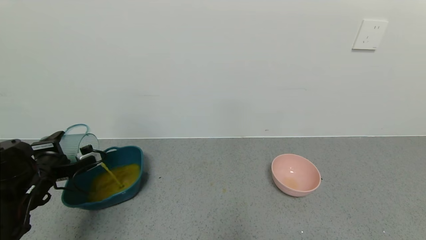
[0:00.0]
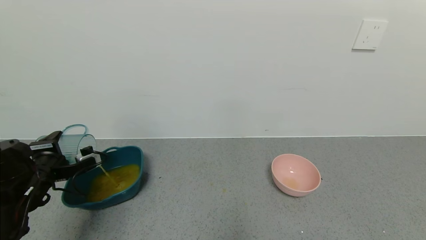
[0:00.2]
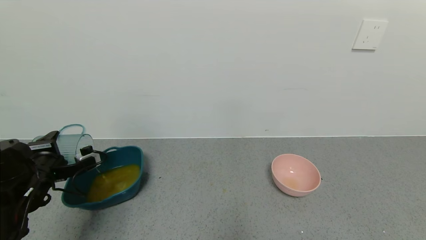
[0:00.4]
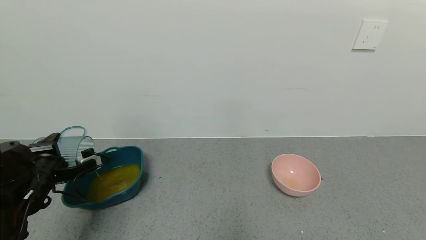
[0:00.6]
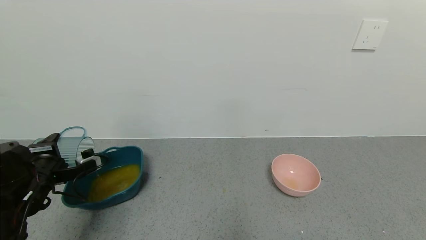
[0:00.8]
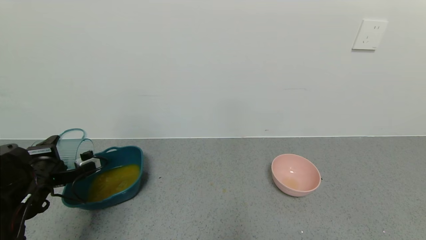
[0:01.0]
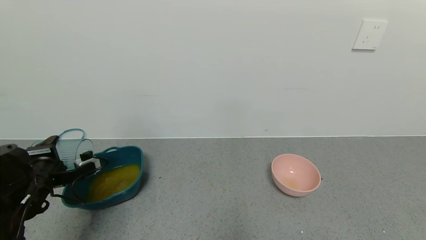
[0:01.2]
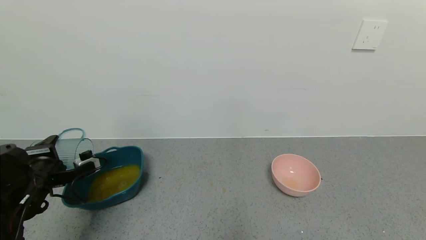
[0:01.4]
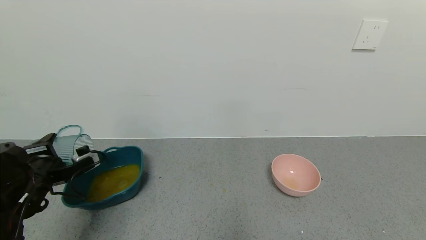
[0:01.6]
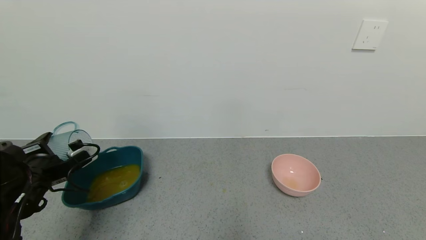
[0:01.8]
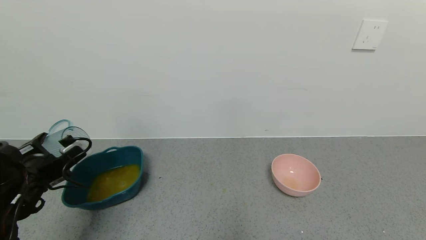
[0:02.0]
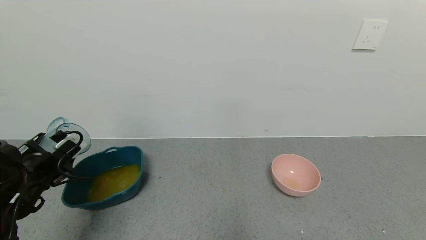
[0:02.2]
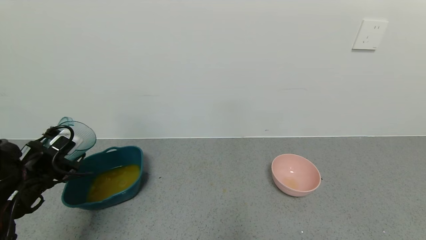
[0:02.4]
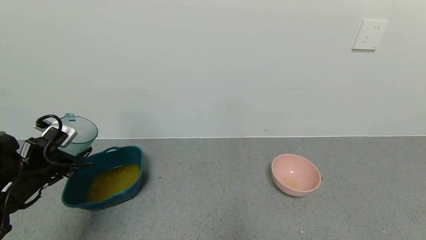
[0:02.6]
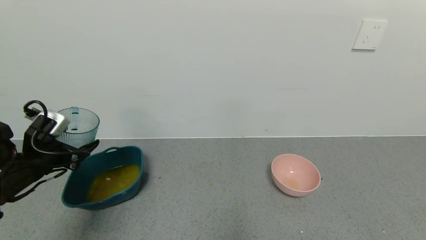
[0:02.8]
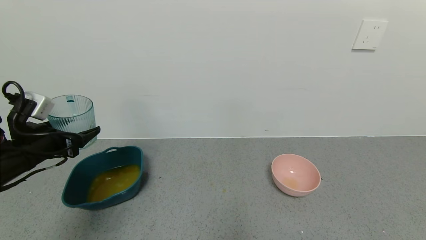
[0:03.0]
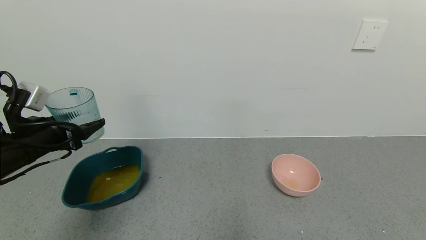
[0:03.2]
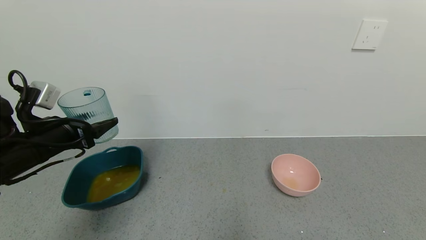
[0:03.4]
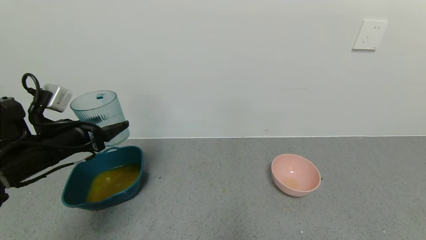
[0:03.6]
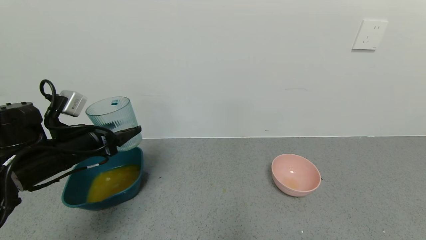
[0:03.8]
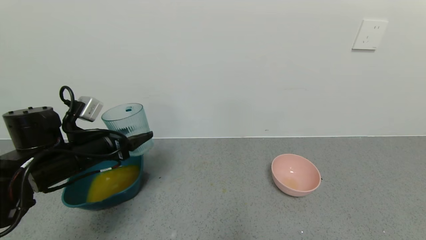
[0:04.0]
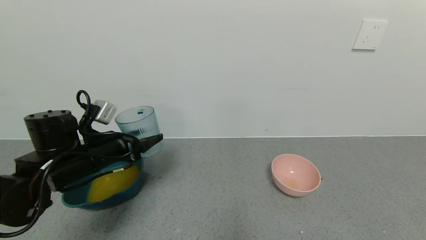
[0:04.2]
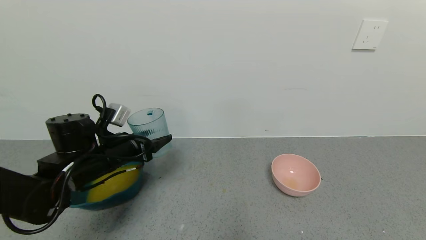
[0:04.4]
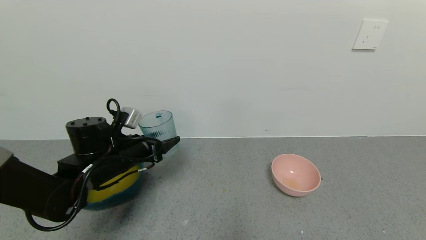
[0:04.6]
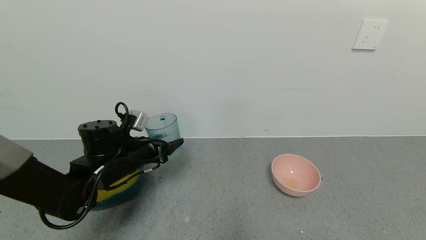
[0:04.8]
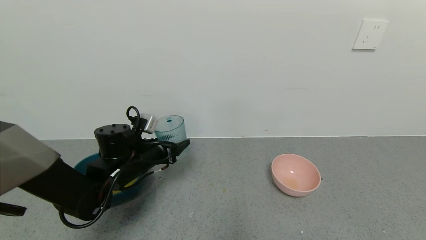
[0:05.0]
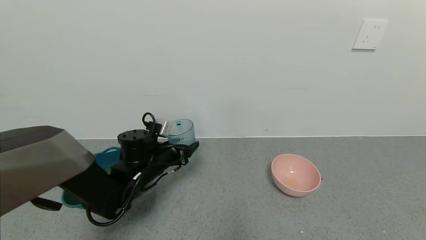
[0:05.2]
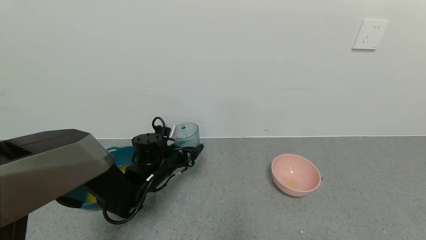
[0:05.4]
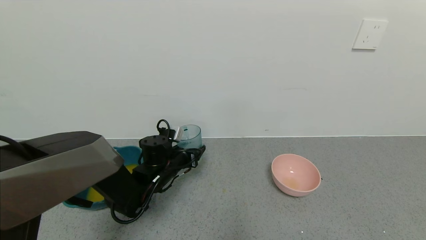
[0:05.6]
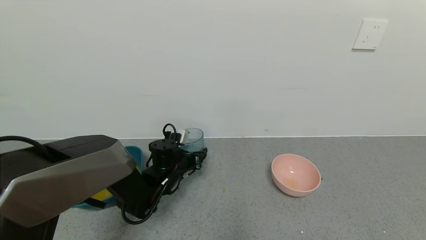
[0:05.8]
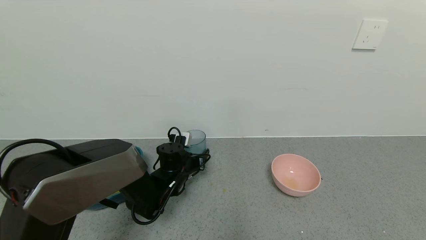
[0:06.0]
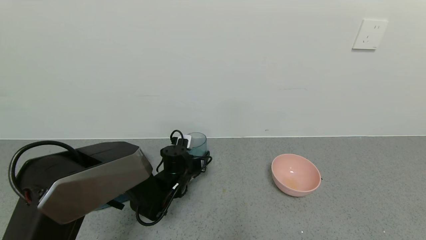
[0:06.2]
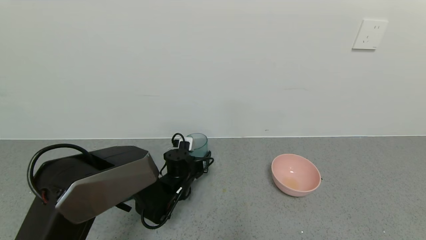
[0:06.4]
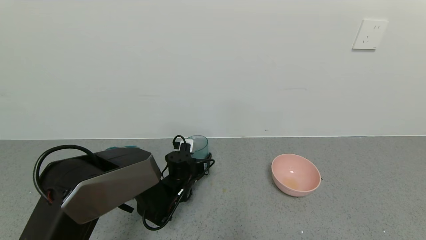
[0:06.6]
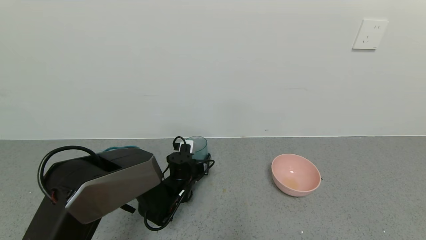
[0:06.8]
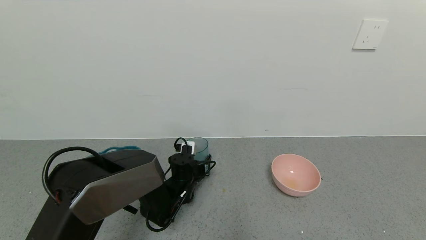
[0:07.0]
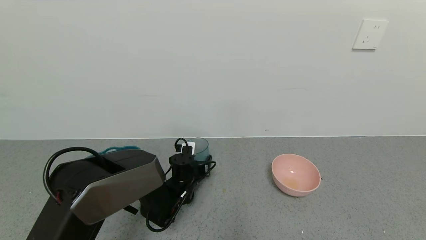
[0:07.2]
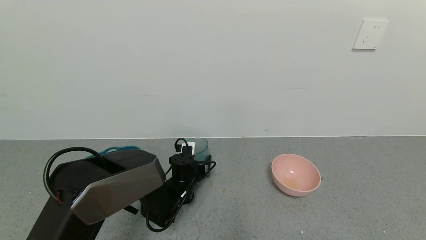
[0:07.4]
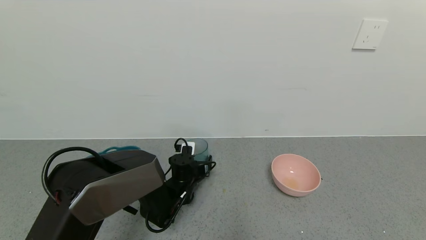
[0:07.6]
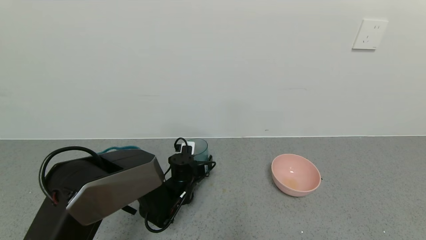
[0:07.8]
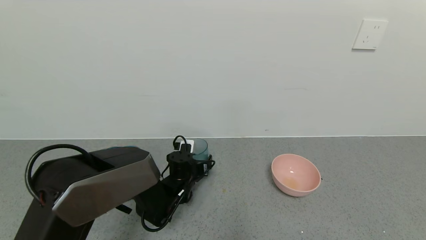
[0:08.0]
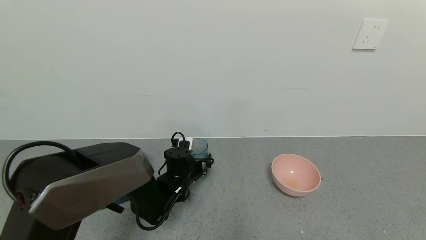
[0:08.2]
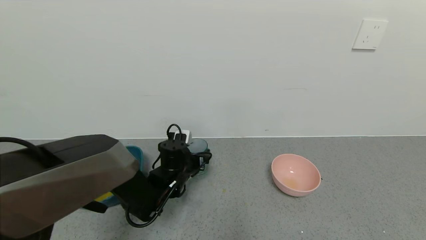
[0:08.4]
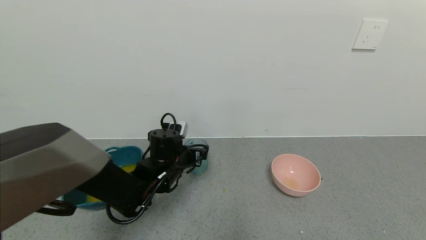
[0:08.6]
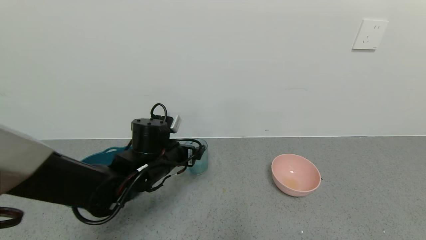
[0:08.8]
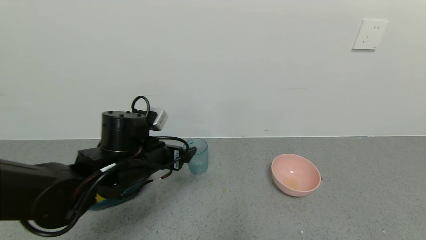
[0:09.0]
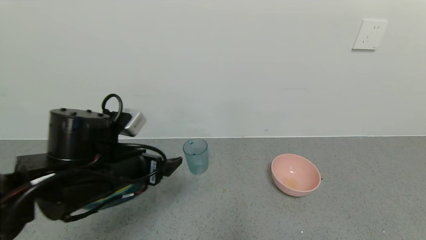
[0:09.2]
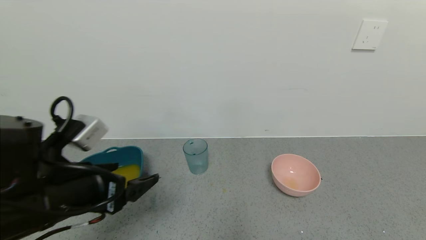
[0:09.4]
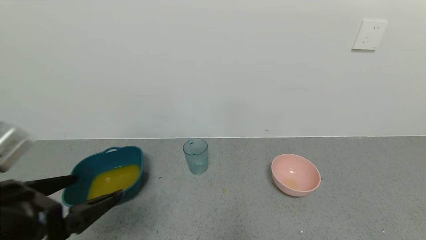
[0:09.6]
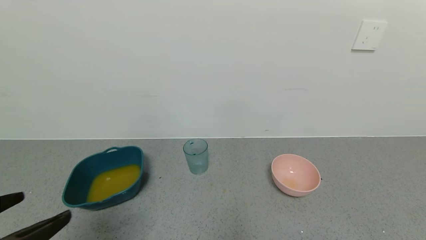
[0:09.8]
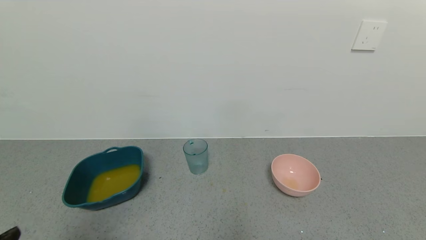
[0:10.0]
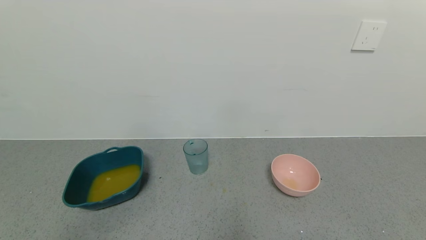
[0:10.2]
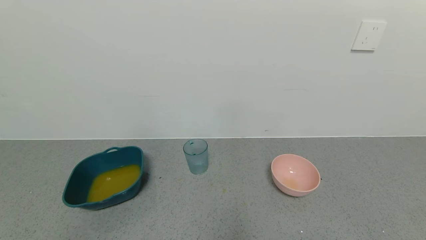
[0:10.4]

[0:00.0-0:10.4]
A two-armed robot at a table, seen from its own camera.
Task of the whole recording: use a gripper to pick up the cup and pour the liquid into a bowl or tray.
Step, 0:00.0 to 0:02.2: Pour the orange juice into the blue basin with left gripper.
Step, 0:02.4 to 0:08.2: Place blue cup with orange juice on the table with left gripper.
0:00.0 to 0:01.4: The grippers move only a little.
0:01.4 to 0:03.0: The left gripper moves upward, about 5 cm.
0:03.0 to 0:04.4: The left gripper goes approximately 10 cm to the right.
0:04.4 to 0:06.0: The left gripper heads downward, to the right and forward, covering approximately 20 cm.
0:06.0 to 0:07.4: The grippers stay close to where they were, moving slightly.
0:07.4 to 0:09.0: The left gripper travels upward and backward by approximately 20 cm, and opens up.
0:09.0 to 0:10.4: The left gripper goes about 35 cm backward and to the left.

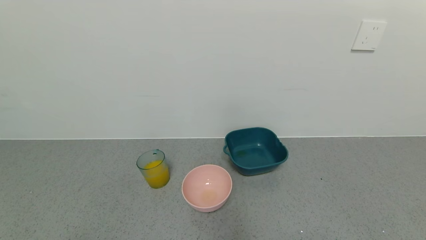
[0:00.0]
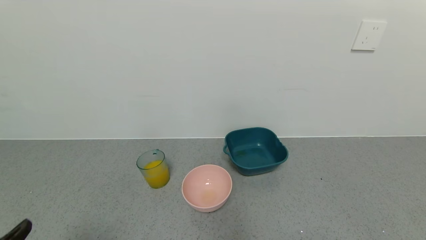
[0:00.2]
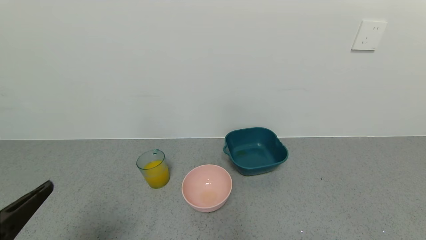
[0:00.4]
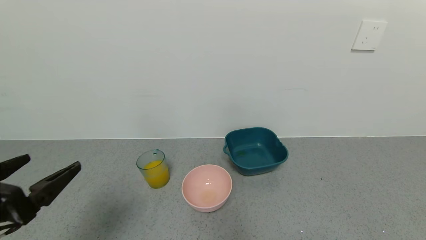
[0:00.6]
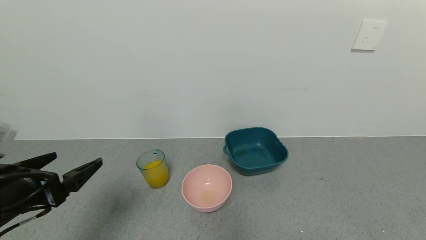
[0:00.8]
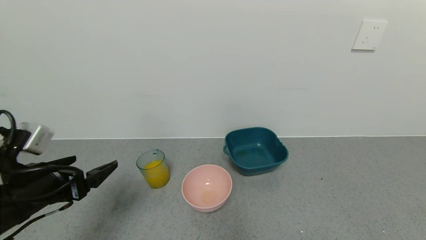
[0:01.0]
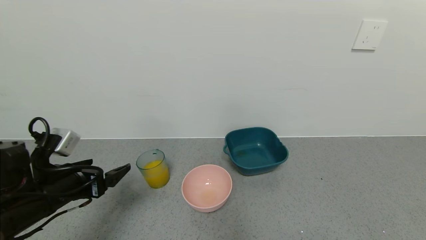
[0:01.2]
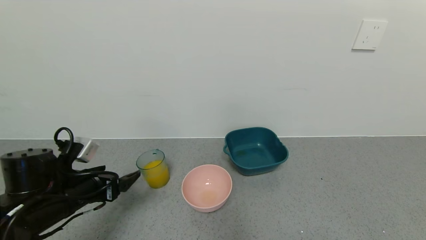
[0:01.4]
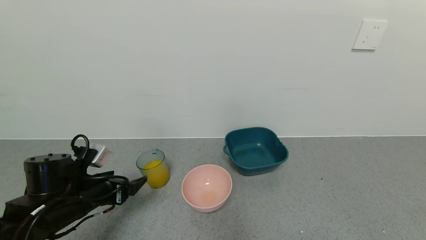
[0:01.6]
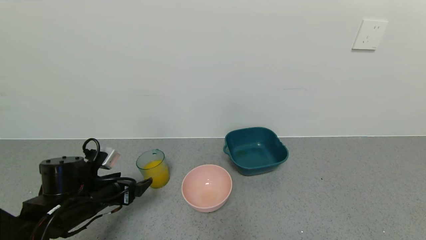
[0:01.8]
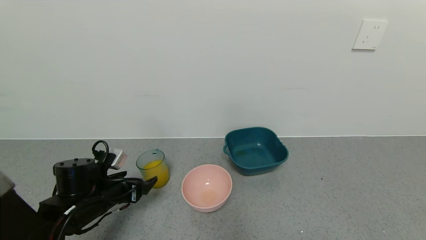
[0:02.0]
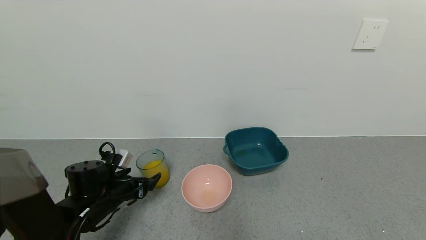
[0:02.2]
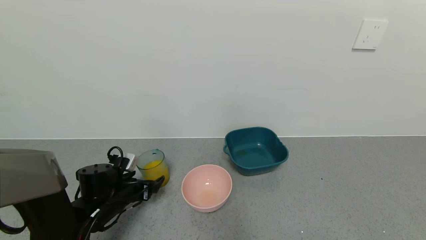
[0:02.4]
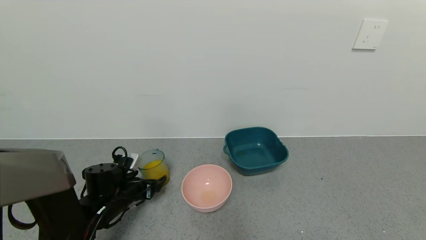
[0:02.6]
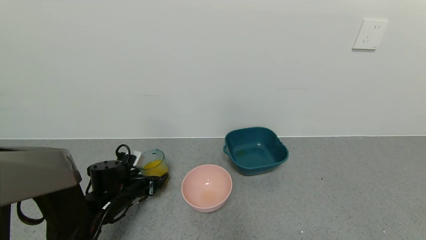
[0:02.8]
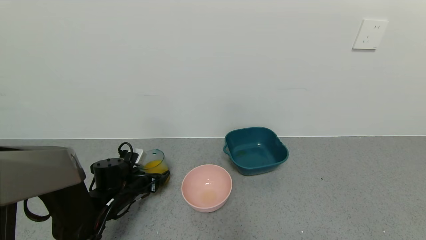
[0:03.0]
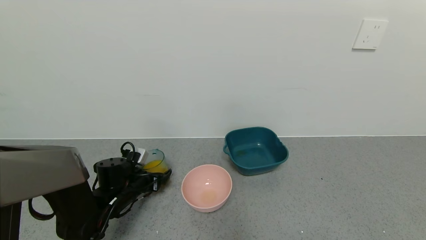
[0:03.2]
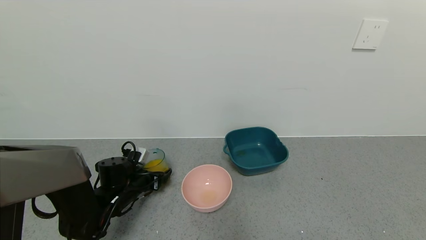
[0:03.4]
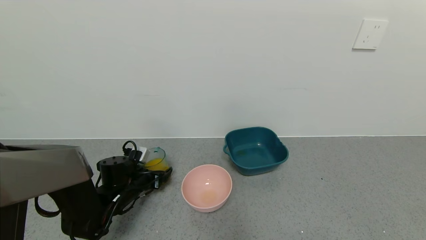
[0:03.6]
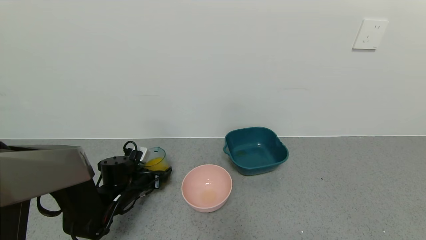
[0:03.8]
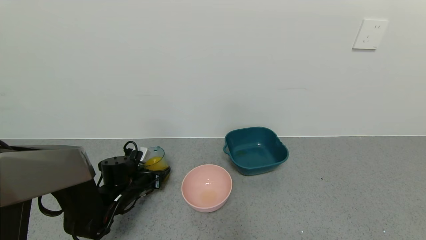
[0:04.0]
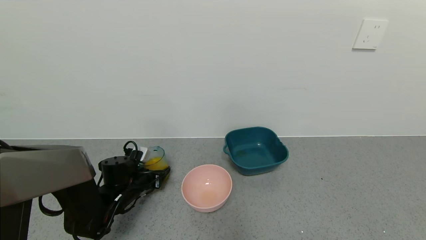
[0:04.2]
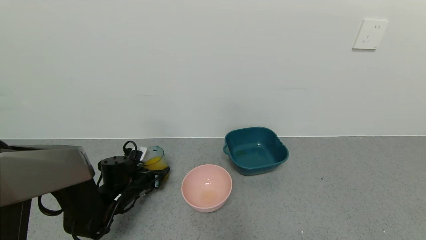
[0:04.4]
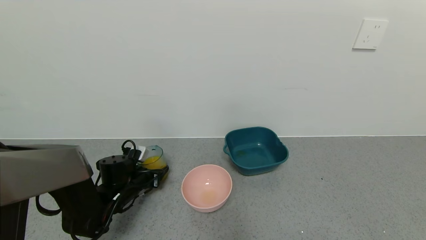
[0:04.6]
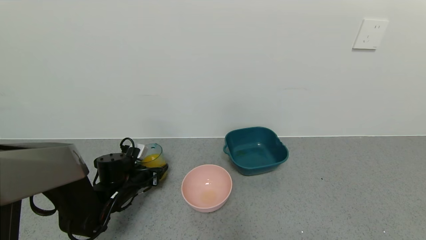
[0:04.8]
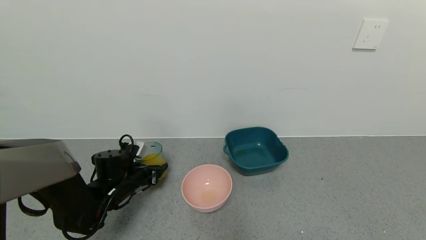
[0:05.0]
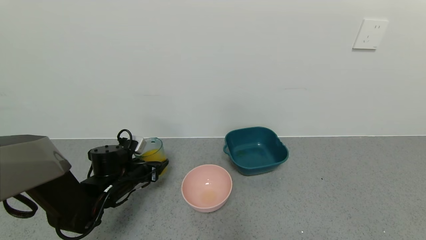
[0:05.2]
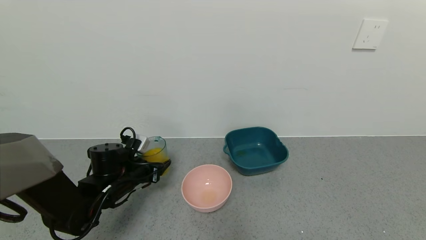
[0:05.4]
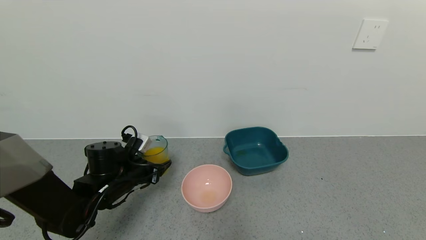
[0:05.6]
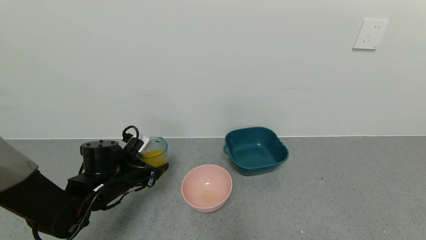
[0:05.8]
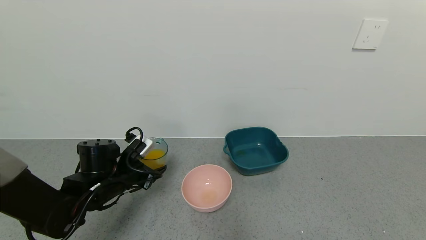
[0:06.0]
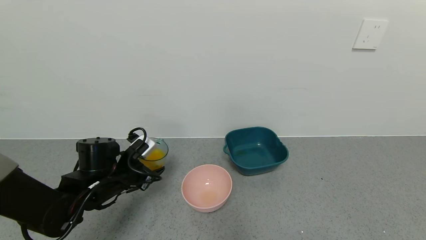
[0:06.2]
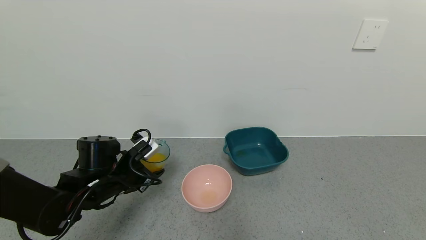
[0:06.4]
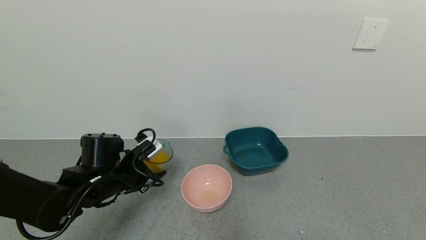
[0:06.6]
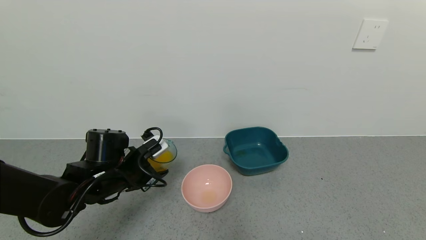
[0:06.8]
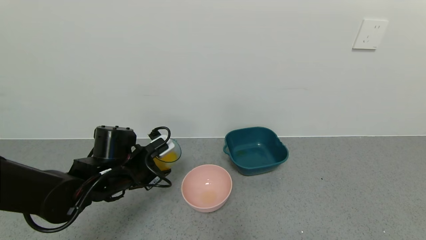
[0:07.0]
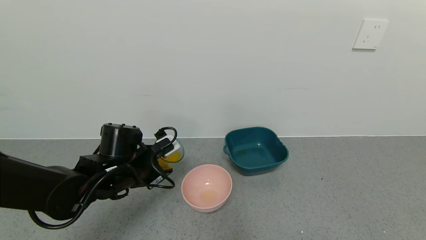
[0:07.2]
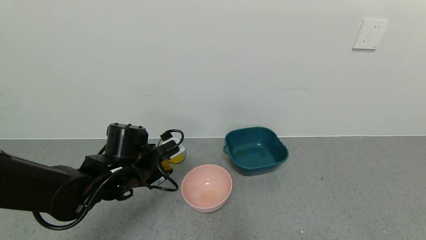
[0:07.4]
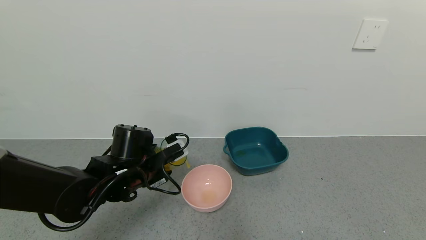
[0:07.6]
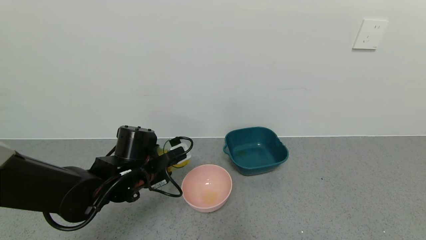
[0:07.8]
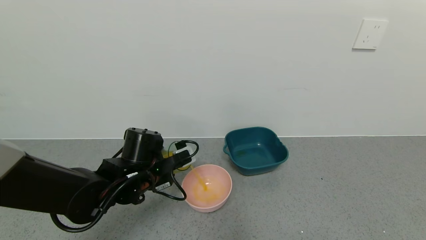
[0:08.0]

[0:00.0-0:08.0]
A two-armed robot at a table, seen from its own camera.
Task of the whole recording: use a gripper to pick up the cup and pour the liquid into a bowl or tray.
Step, 0:00.0 to 0:03.8: Grasp the glass of orange juice with the left gripper.
0:00.0 to 0:01.6: The left gripper heads forward, covering roughly 25 cm.
0:01.6 to 0:03.2: The left gripper shifts approximately 10 cm forward and downward.
0:03.2 to 0:04.8: The left gripper closes its fingers.
0:04.8 to 0:06.4: The left gripper goes some 10 cm upward.
0:06.4 to 0:08.0: The left gripper goes about 5 cm to the right.
